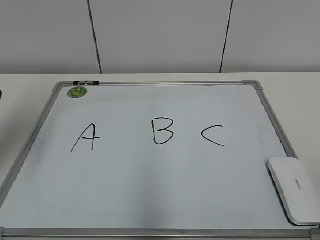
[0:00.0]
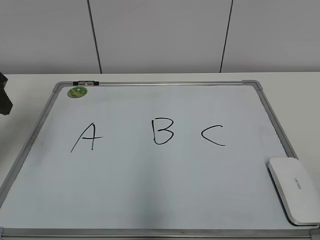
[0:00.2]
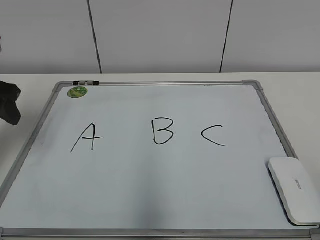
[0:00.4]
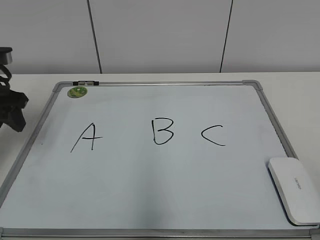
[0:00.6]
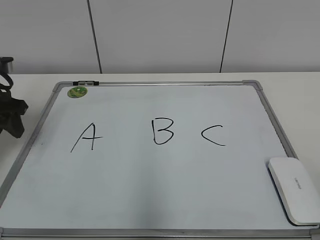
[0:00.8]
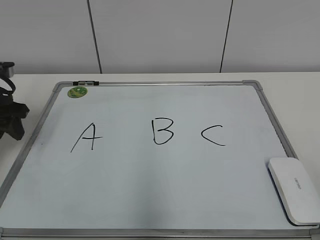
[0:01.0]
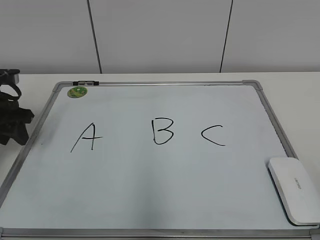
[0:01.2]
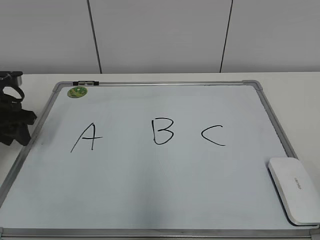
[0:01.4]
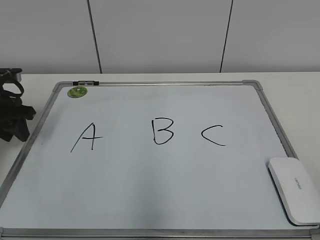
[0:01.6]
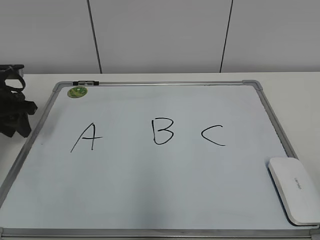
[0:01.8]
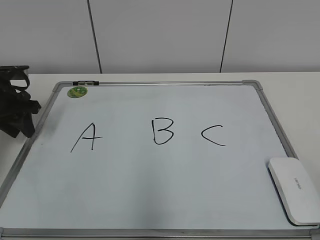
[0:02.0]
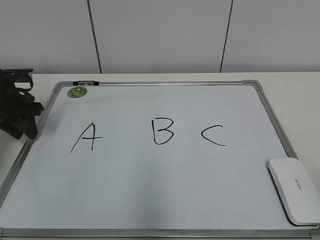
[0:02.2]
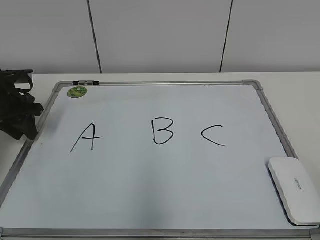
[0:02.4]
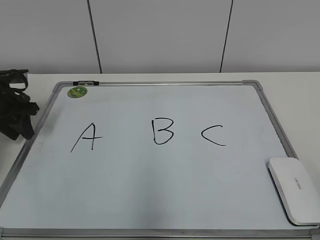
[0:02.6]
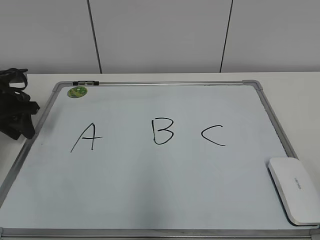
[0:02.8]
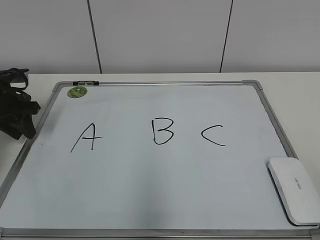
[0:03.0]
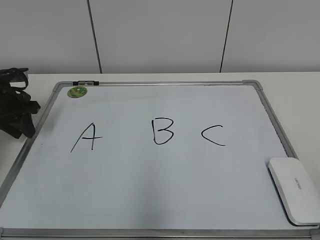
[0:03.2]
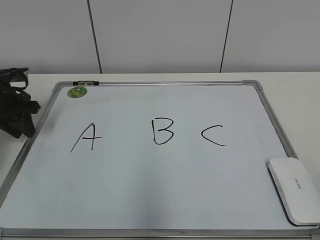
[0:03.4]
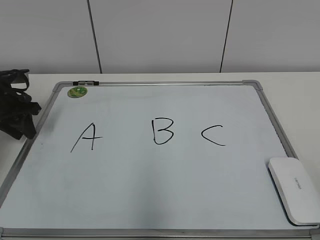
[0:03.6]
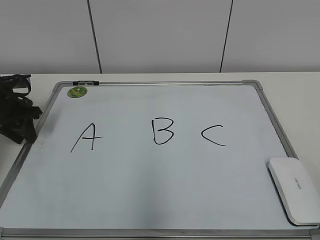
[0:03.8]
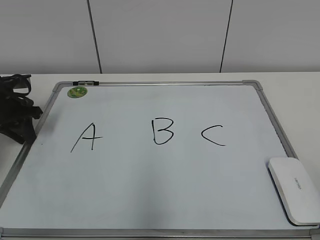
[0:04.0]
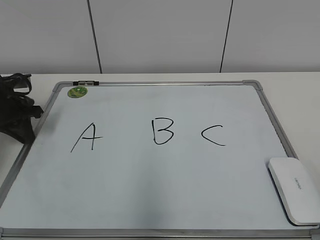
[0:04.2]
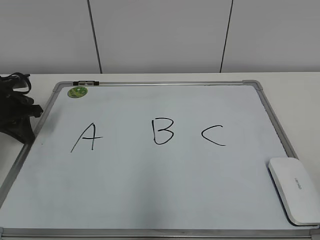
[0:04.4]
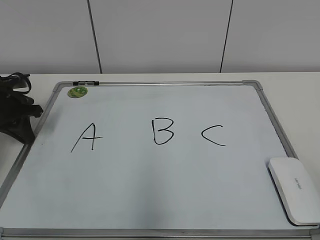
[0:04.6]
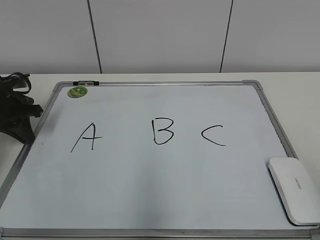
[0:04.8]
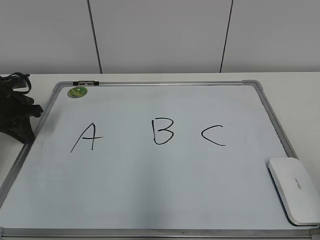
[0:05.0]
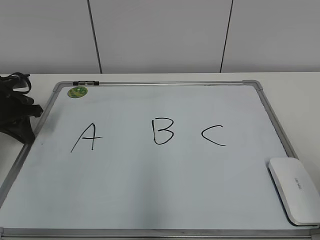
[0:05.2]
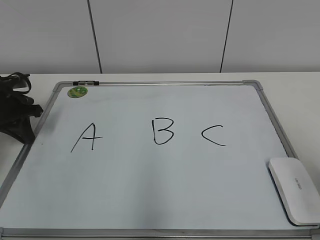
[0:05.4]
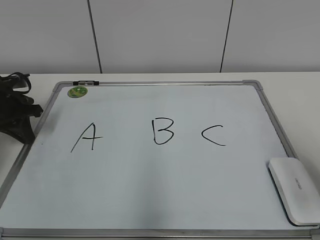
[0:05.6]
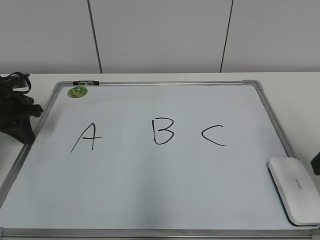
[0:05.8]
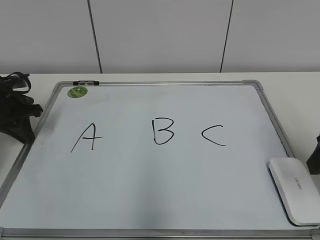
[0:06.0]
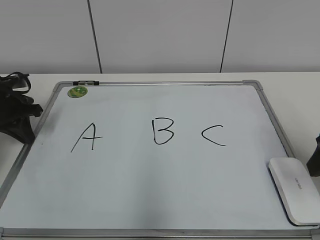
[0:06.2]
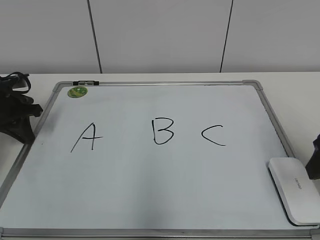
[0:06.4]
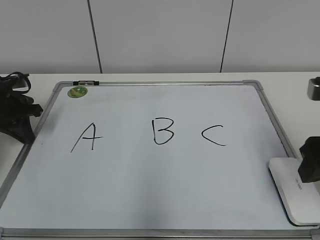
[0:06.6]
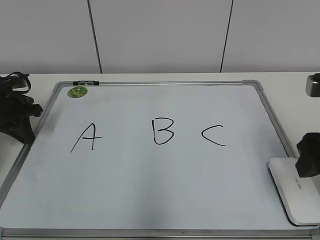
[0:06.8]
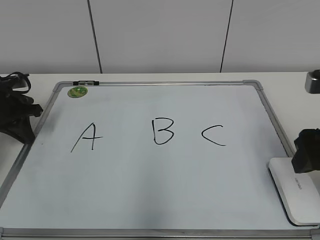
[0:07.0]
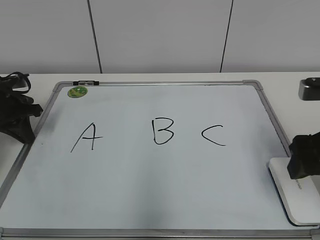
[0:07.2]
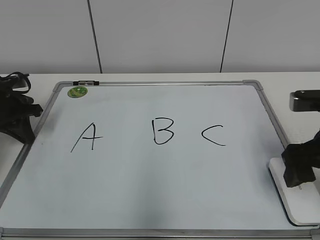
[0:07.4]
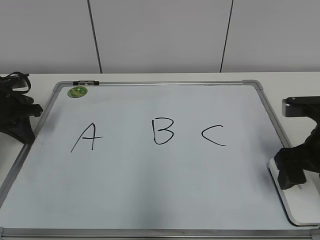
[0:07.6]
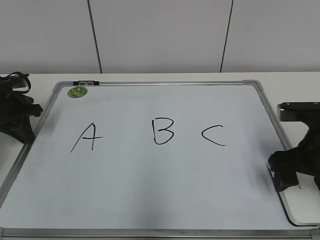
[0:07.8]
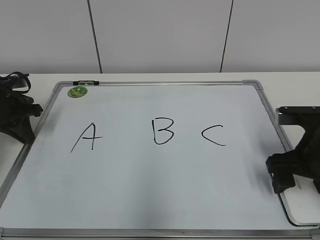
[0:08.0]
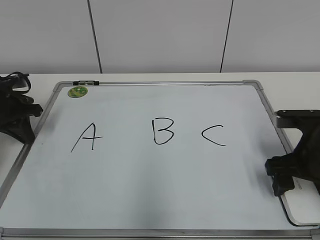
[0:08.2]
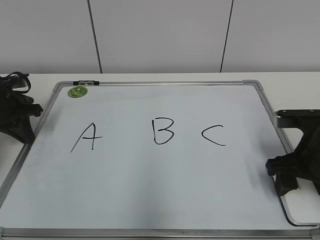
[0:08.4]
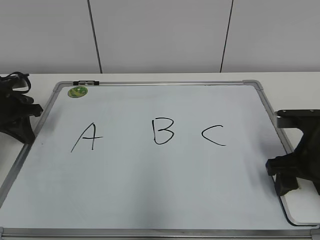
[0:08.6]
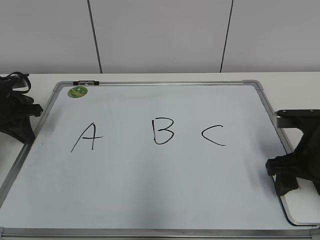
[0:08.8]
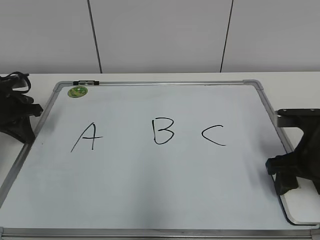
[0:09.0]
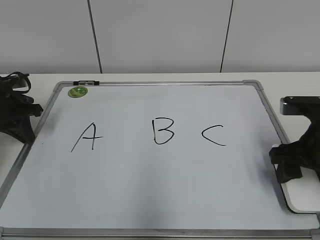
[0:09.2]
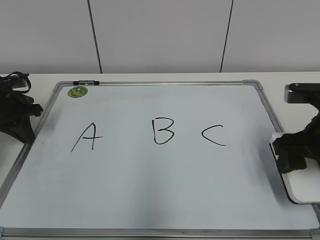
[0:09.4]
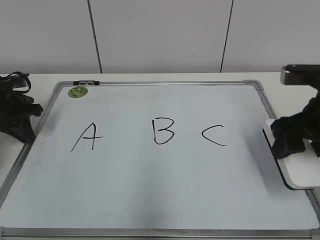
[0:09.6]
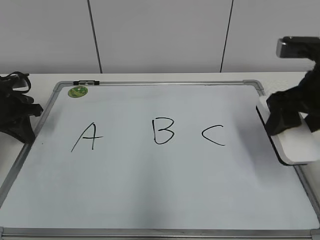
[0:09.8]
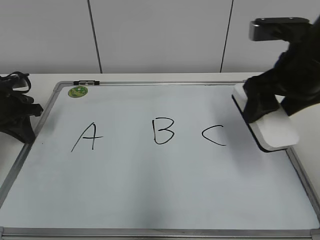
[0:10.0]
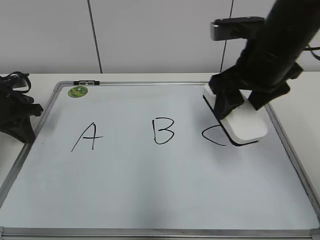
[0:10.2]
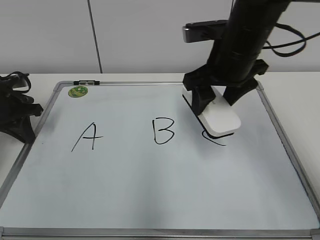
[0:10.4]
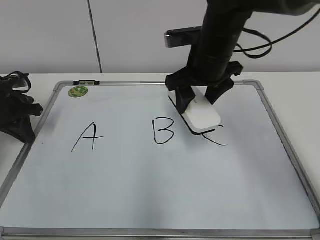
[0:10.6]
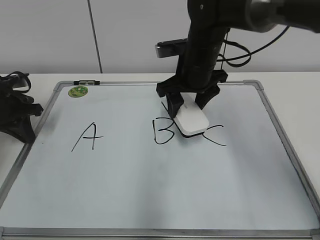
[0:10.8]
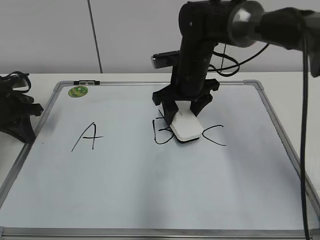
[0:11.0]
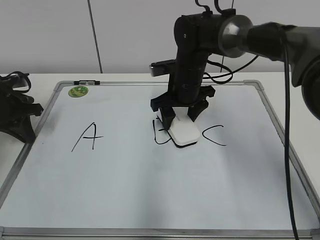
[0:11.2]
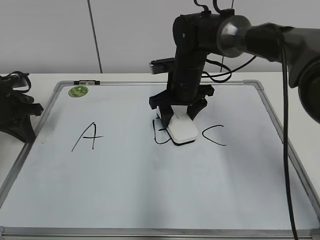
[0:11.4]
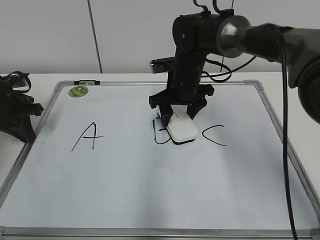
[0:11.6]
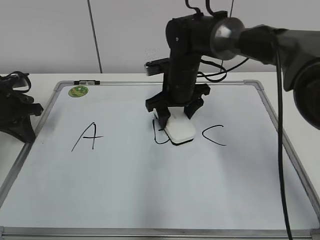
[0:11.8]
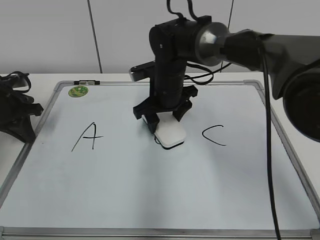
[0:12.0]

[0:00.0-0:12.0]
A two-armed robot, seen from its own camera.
Task of the whole recording: pick up the eraser on the blackboard and erase the letter "B".
Step, 0:00.0 to 0:04.8: Hold the drawing board steady with your left hand.
Step, 0:05.0 to 0:08.4: Grab the eraser with your right hand.
0:00.0 to 0:01.6: The left gripper heads downward and forward, covering some 20 cm, and closes up.
0:01.6 to 0:03.0: The grippers make only small movements.
0:03.0 to 0:04.4: The left gripper closes.
0:04.4 to 0:06.0: The right gripper heads forward, covering approximately 25 cm.
0:06.0 to 0:07.6: The right gripper goes about 5 cm downward, and opens its fingers.
0:07.6 to 0:09.0: The right gripper closes.
0:09.0 to 0:10.4: The right gripper goes roughly 20 cm to the left, upward and forward.
0:10.4 to 0:12.0: The right gripper moves downward, to the left and forward, some 15 cm.

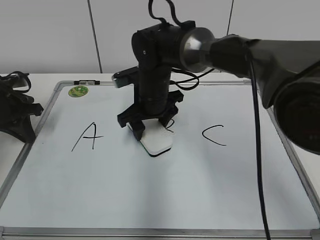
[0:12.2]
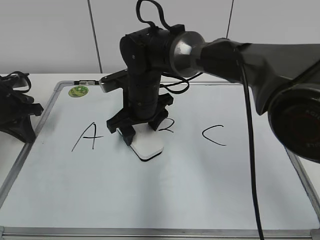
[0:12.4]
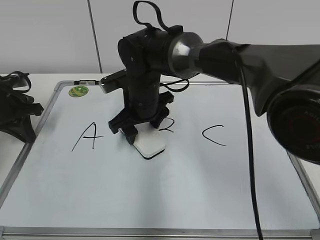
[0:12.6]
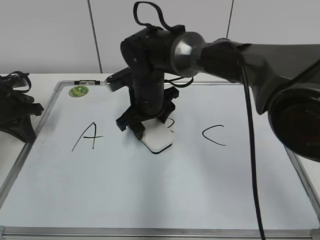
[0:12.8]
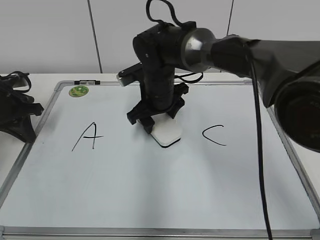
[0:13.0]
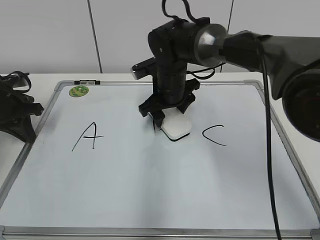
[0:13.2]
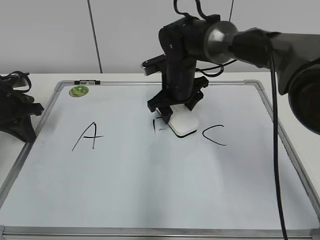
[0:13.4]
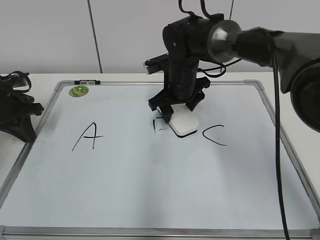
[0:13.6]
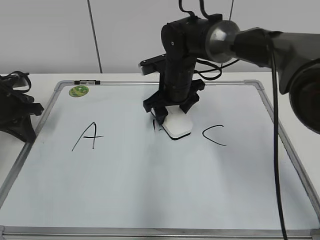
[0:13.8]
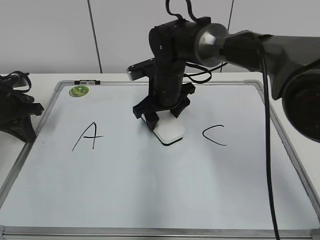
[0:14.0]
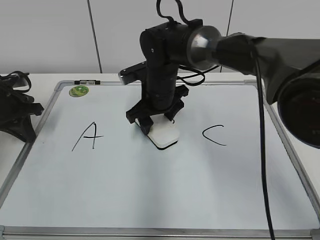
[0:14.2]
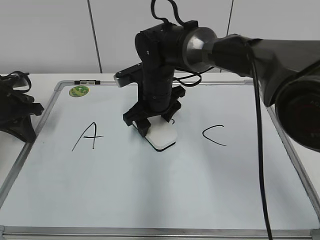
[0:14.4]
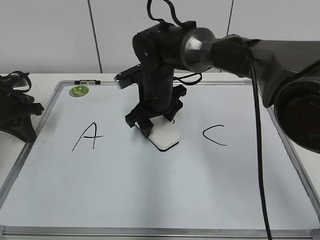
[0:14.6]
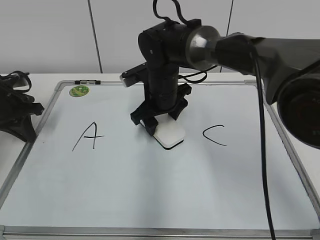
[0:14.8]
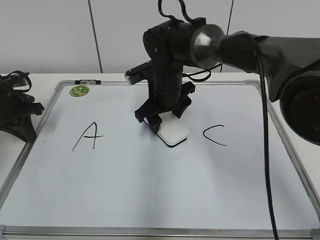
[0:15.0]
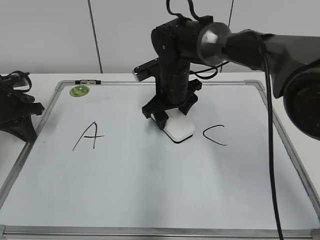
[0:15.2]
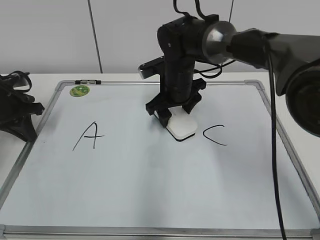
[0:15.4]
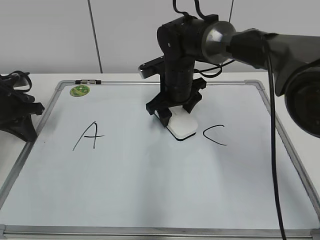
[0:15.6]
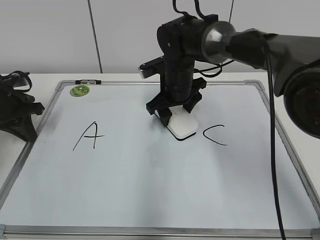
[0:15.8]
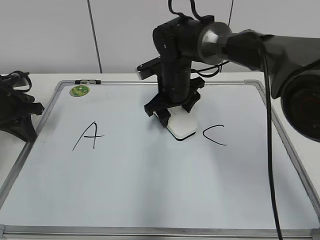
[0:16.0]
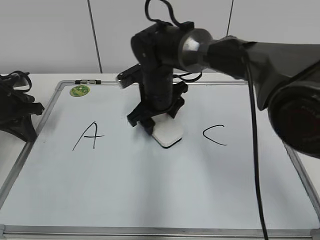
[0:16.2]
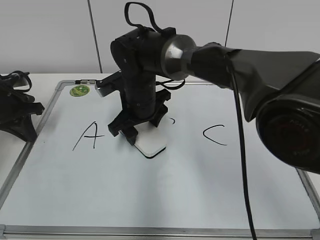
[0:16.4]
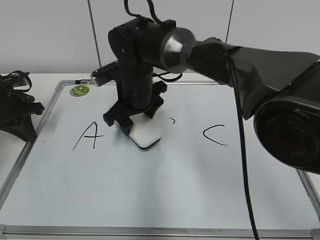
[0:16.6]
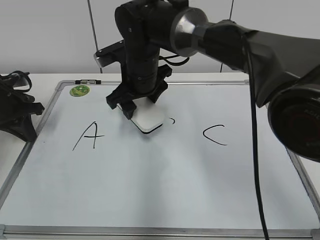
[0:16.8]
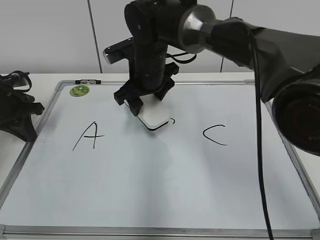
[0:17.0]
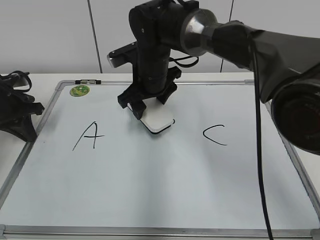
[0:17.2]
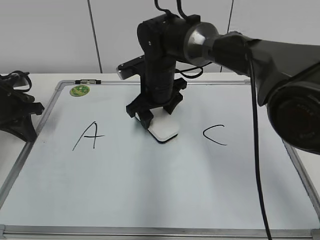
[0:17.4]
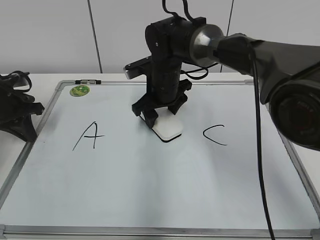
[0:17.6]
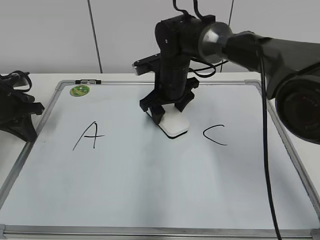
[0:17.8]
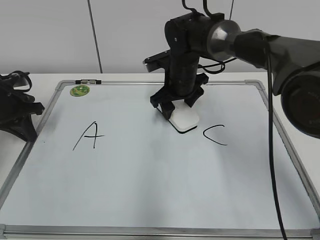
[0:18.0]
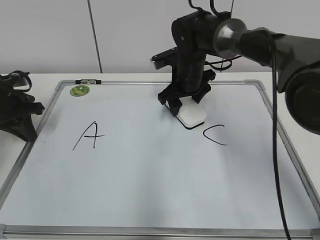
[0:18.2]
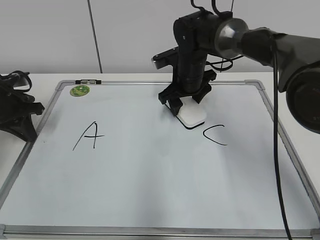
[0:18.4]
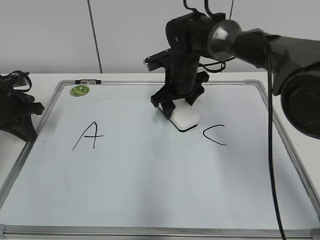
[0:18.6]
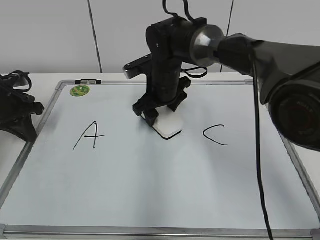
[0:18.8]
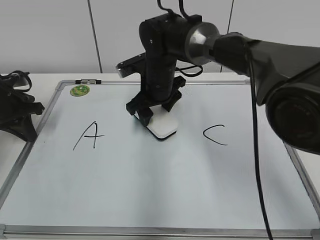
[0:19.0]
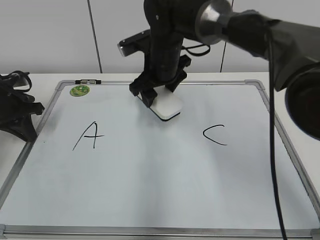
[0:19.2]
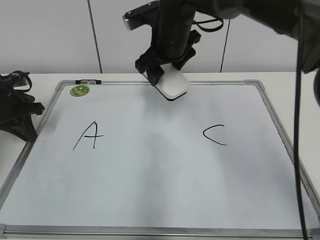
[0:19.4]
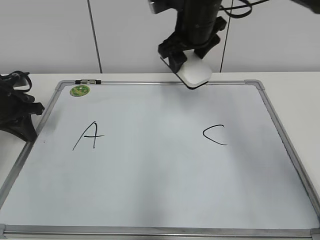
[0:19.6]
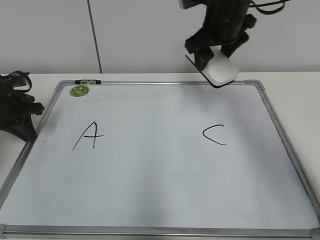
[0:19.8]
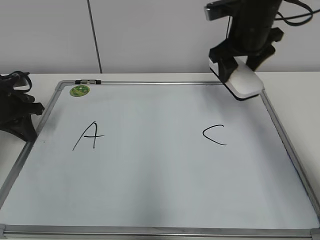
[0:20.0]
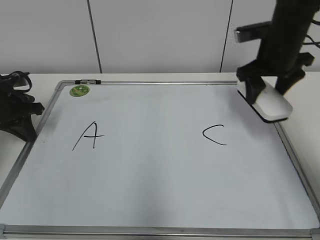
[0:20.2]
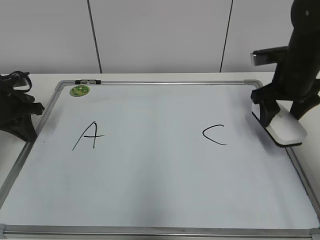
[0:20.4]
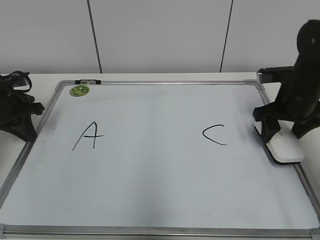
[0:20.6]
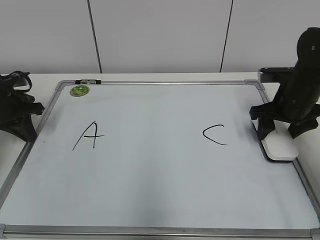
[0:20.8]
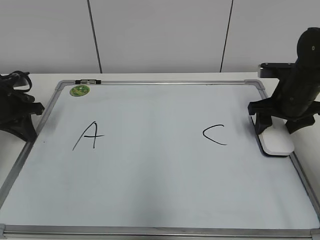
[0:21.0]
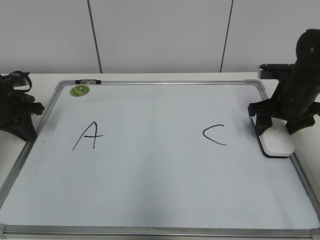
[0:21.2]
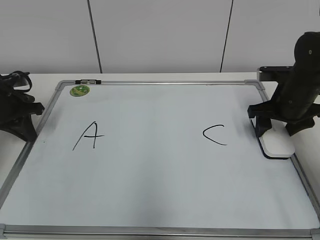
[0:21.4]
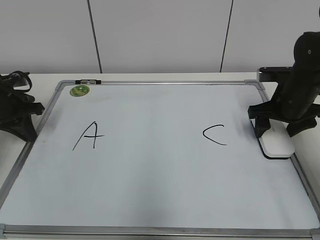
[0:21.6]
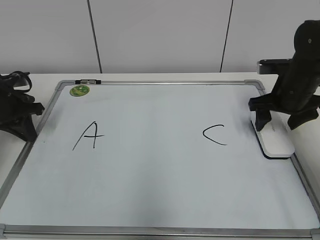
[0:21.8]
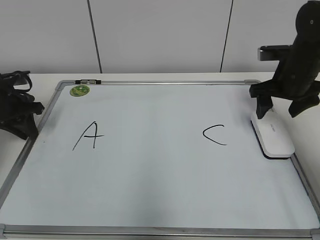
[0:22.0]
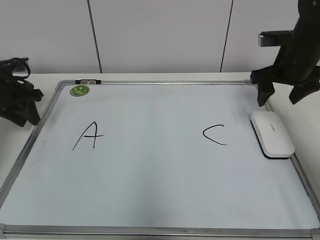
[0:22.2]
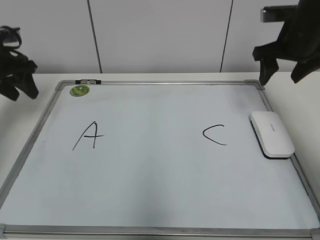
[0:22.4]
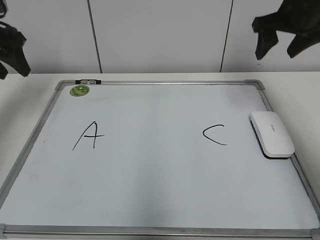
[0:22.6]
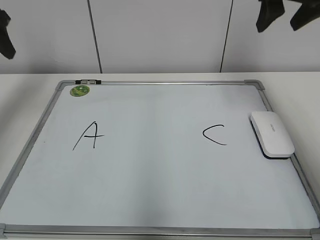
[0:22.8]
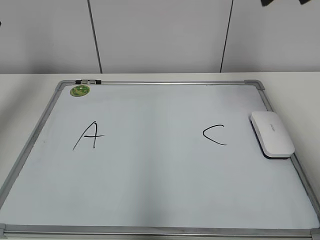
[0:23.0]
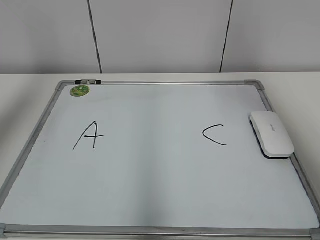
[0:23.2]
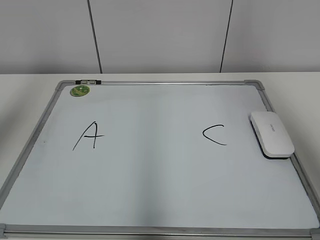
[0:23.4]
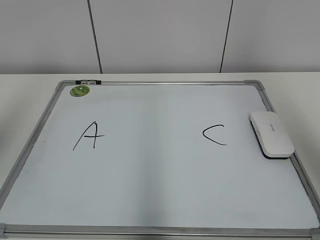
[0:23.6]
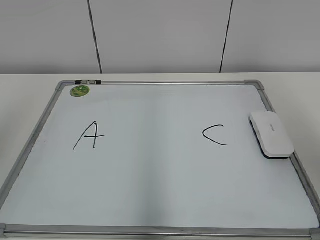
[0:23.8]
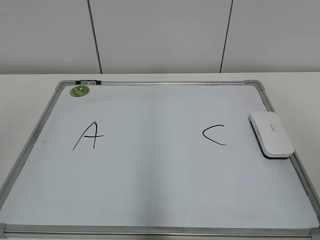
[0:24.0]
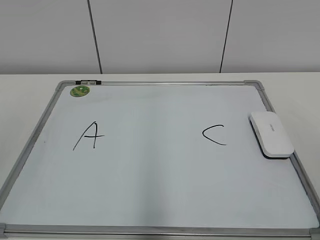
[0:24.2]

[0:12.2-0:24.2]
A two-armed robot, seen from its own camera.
Task of the whole recording: pick up the eraser on the blackboard and erase the letter "B".
Step, 0:12.2 to 0:18.8: Erase the letter B with your right hand.
Step, 0:19.0 to 0:21.4: Put down the eraser with your right hand.
0:12.2 to 0:13.8: The right gripper changes place by roughly 5 cm.
0:13.8 to 0:15.2: The grippers make only small movements.
0:15.2 to 0:16.6: The right gripper moves to the left, some 5 cm.
0:16.6 to 0:18.2: The right gripper goes about 15 cm to the right and forward.
0:18.2 to 0:19.8: The right gripper travels upward by approximately 15 cm.
0:19.8 to 0:21.2: The right gripper goes approximately 20 cm to the right, downward and backward.
0:21.2 to 0:22.6: Both grippers travel together upward, approximately 15 cm. The left gripper opens its fingers, while the right gripper opens up.
0:22.6 to 0:24.2: The two grippers go roughly 35 cm backward.
